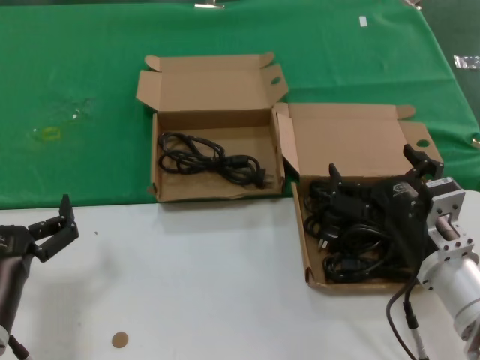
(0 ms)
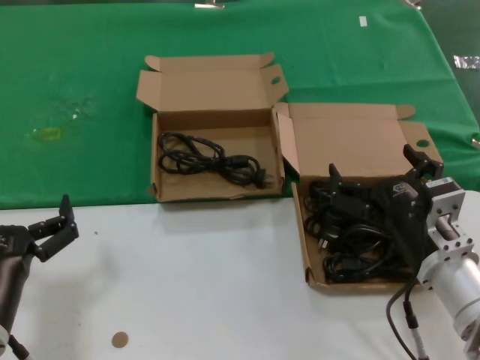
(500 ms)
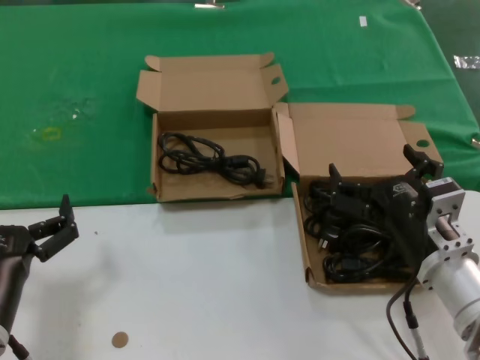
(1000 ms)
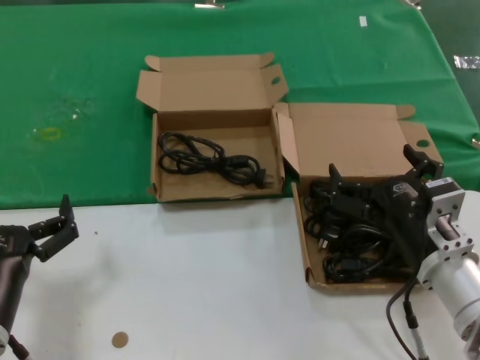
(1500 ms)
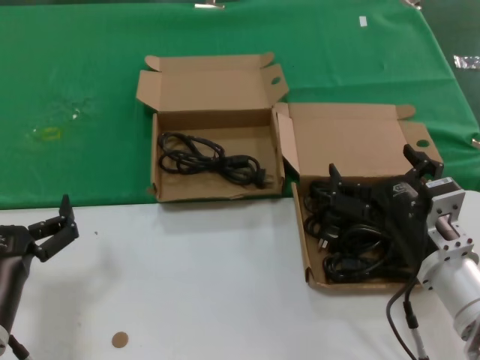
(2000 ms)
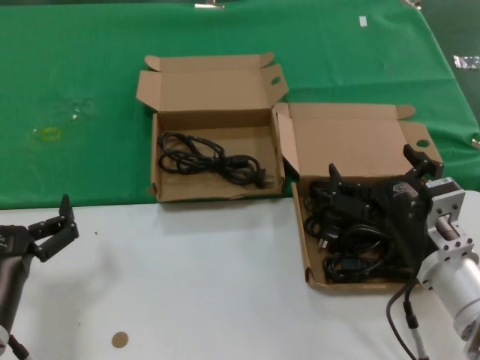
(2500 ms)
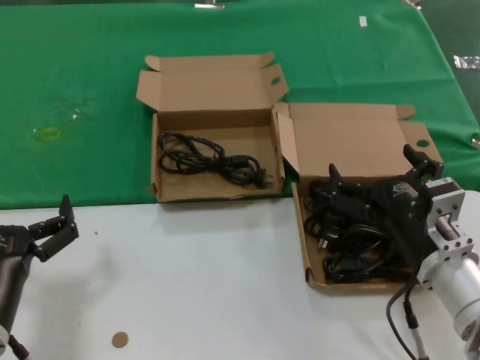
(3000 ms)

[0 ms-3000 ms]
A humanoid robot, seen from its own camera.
Task of the whole recording: take the parts from the box containing them and put them into an empty box.
0 ms to 3000 ms: Neither hand changes place.

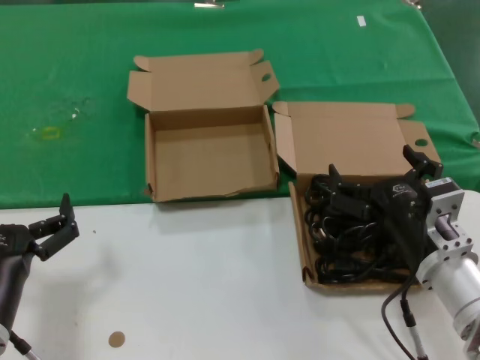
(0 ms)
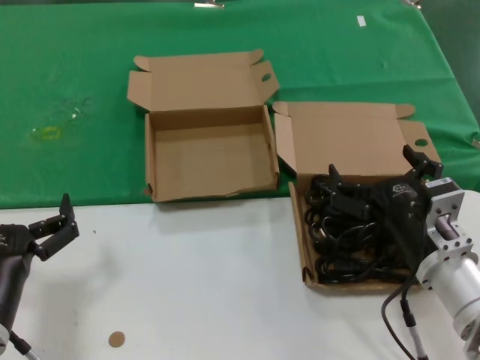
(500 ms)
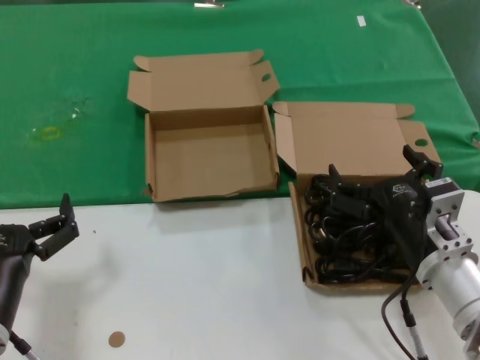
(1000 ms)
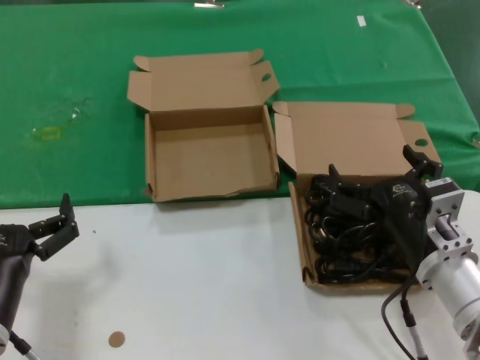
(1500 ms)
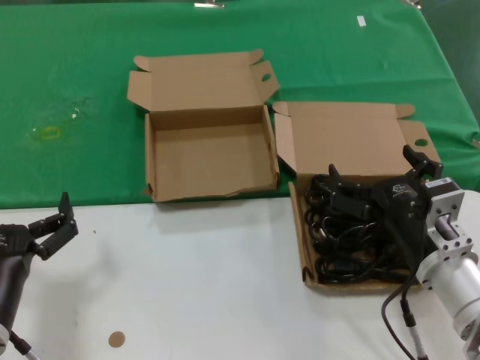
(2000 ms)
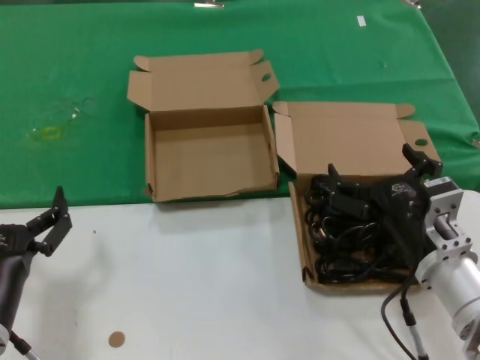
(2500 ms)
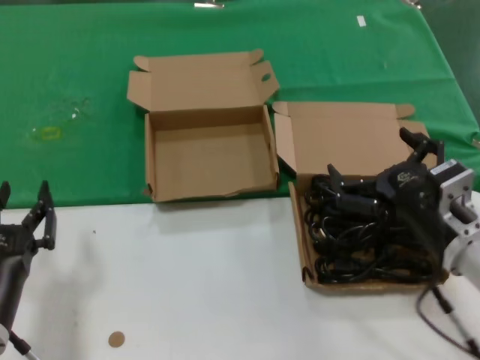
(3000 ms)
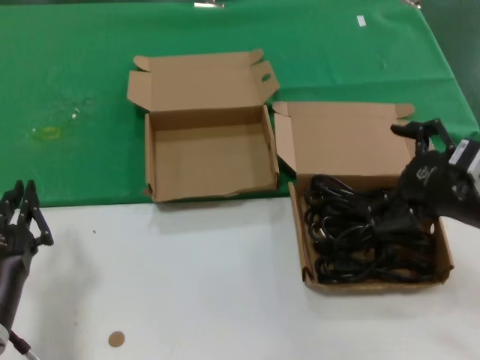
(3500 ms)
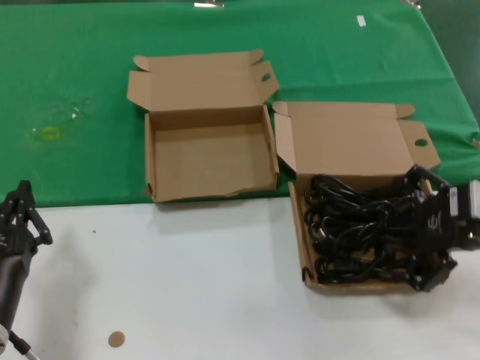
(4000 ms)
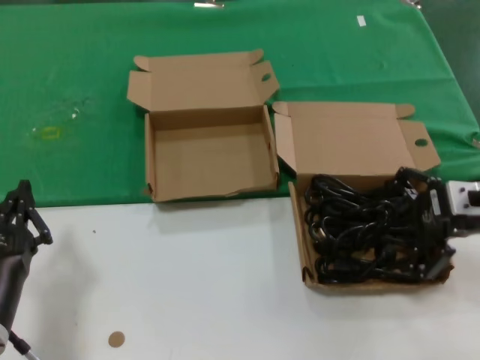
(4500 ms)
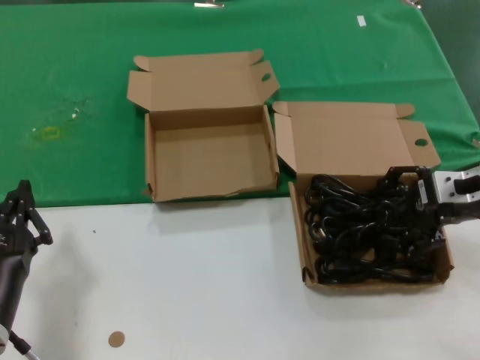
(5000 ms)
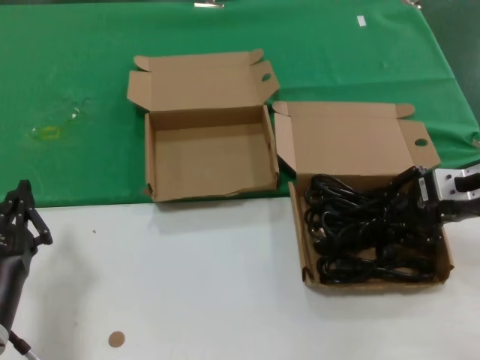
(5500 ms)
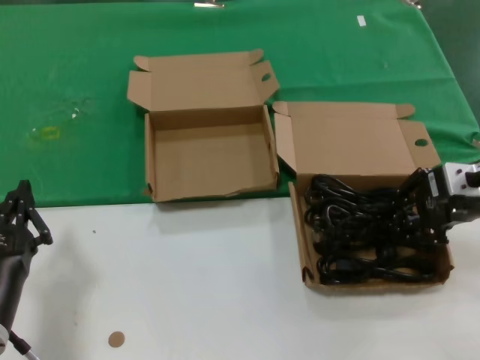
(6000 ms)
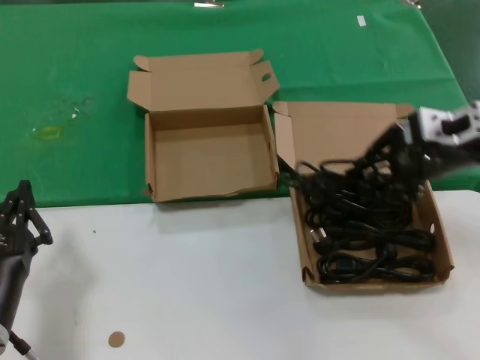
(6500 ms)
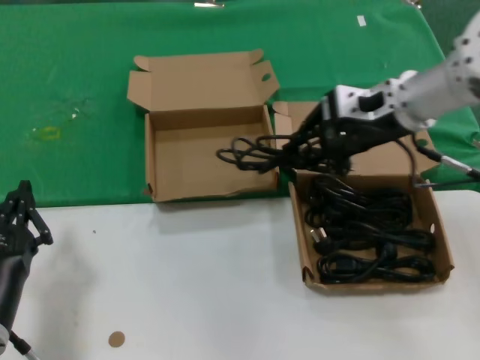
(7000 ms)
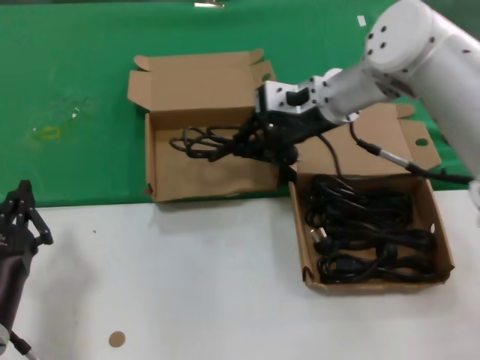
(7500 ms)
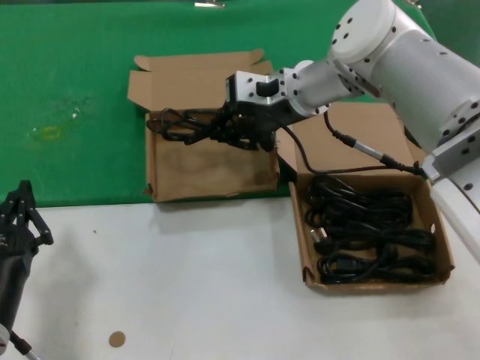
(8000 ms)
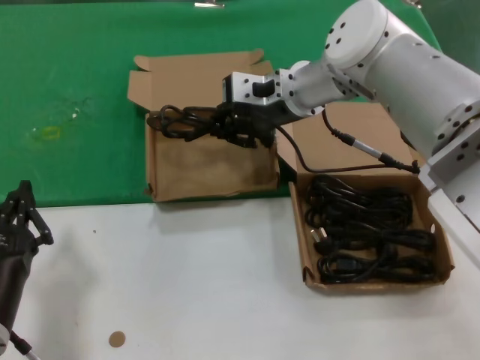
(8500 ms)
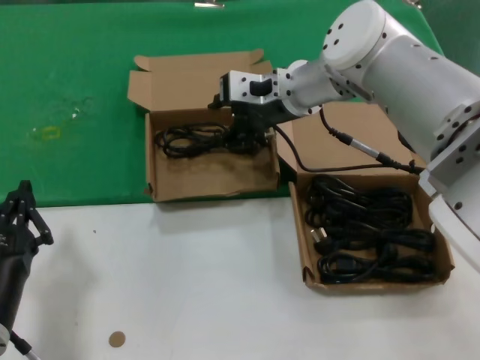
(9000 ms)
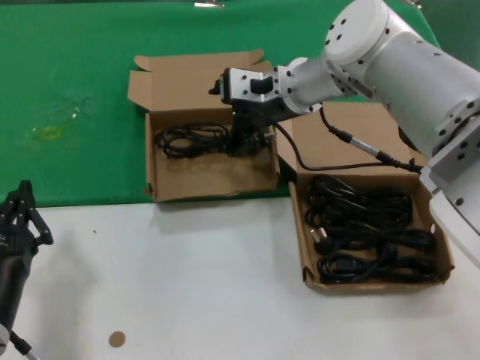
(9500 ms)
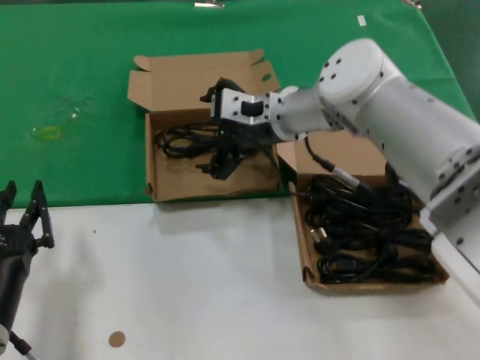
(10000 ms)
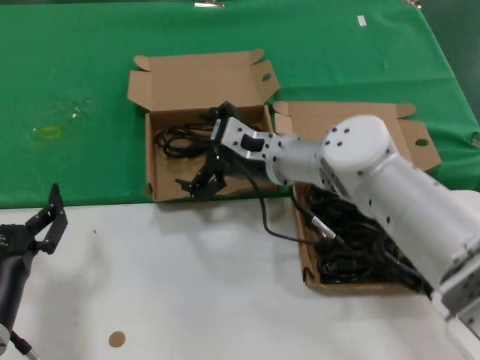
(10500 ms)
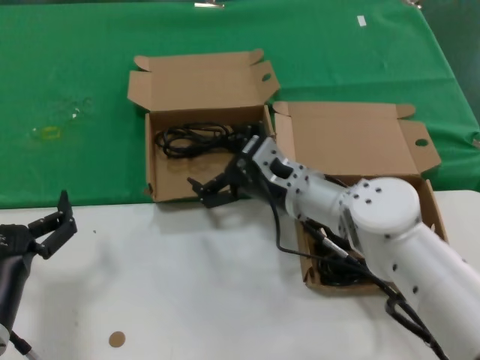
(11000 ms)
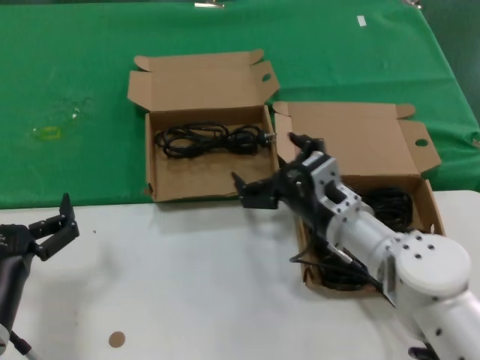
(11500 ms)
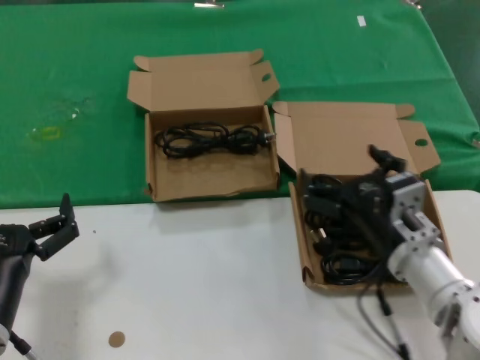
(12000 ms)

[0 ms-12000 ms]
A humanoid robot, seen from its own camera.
Task of the whole recording: take the parts from the box containing them and put them into an empty box.
Step, 0 ms to 5500 ms: Grasp the data cable.
Step, 6000 ms to 9000 ms: Place the data cable in the another box.
0 ms to 2000 ms: The two hands keep their place.
2000 ms to 4000 ms: The right hand shifts some 20 cm upward and to the right.
4000 ms to 6000 ms: The right hand moves forward, roughly 10 cm.
6000 ms to 8000 ms: The right hand heads to the left and forward, covering roughly 25 cm.
10000 ms to 12000 ms: The right hand shifts roughly 30 cm backward, downward and to the right.

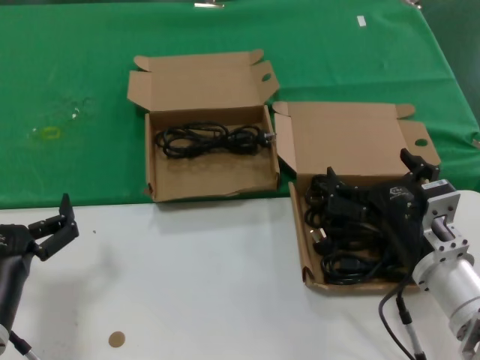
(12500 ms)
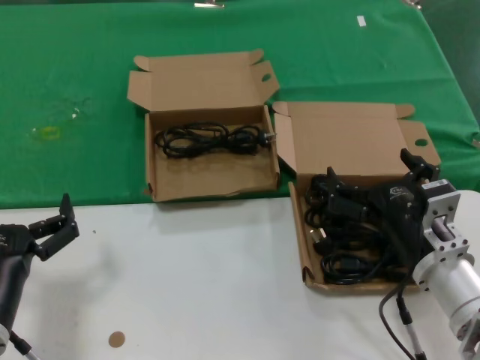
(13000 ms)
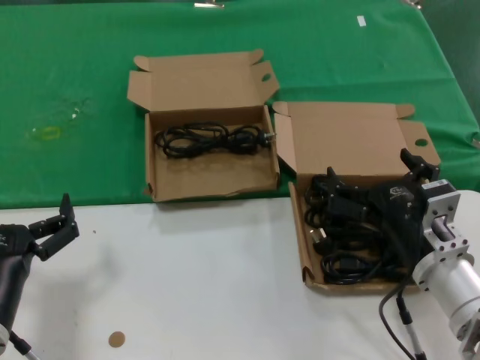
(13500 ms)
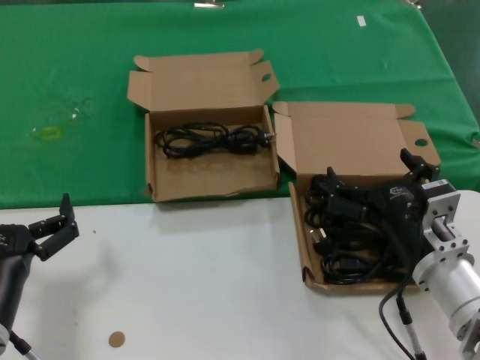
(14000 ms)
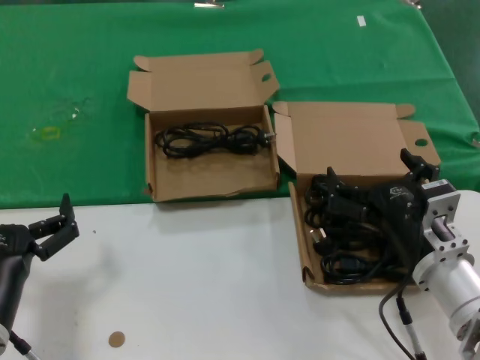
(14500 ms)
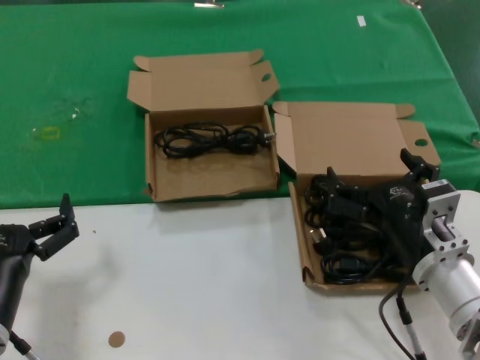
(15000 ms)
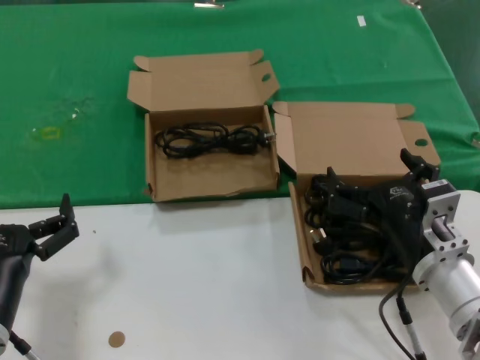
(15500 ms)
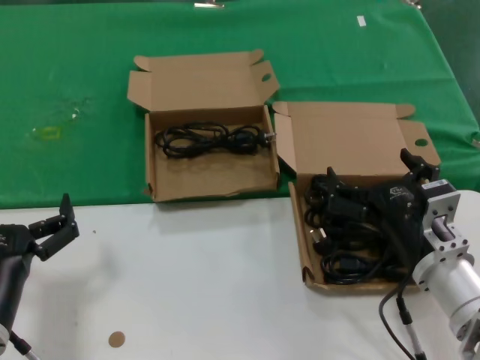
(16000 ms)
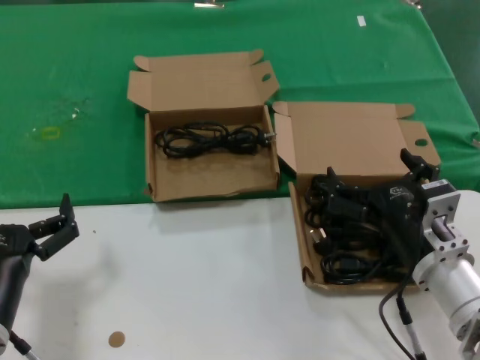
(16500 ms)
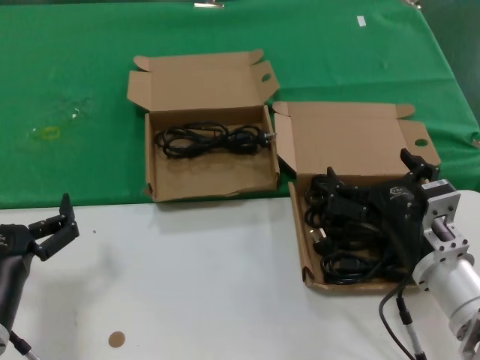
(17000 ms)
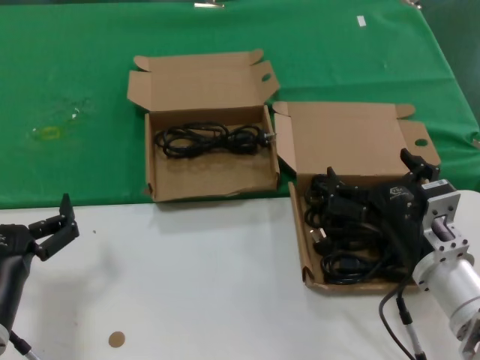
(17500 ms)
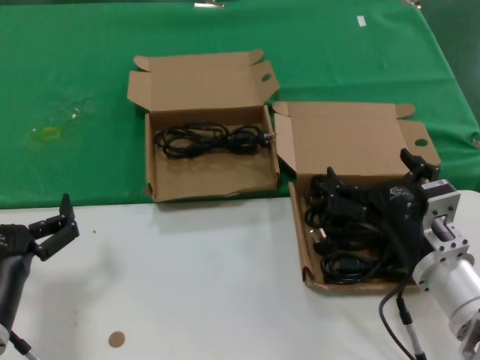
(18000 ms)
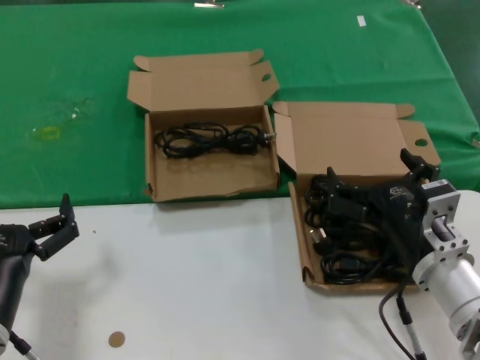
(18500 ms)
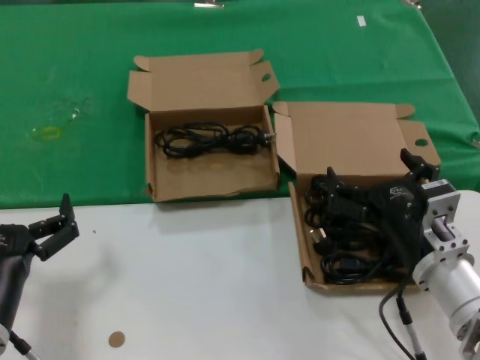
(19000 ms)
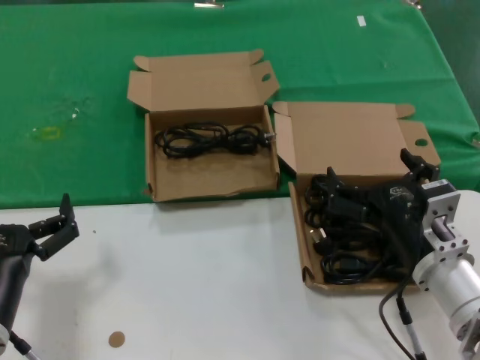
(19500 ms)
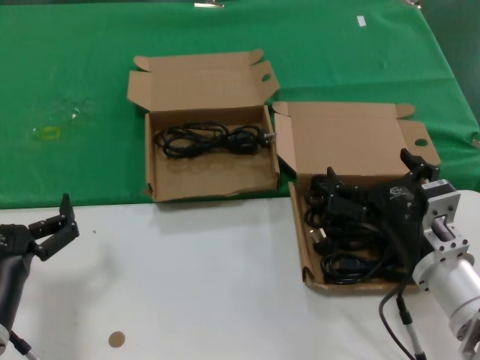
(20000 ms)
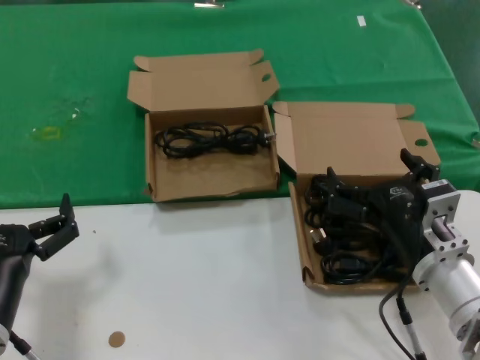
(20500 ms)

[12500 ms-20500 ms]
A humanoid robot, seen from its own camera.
Task of the whole recording: take the parts from the box containing them and put them into an empty box.
12500 ms to 20500 ms: Neither hand changes place.
